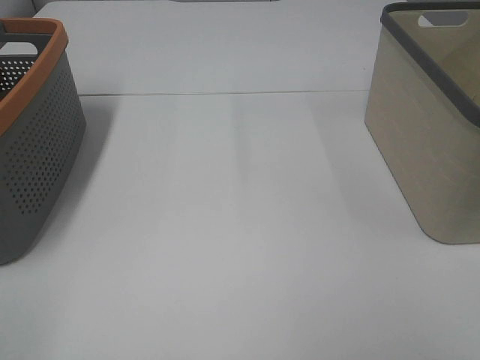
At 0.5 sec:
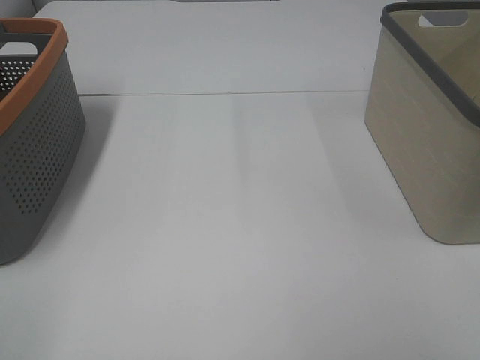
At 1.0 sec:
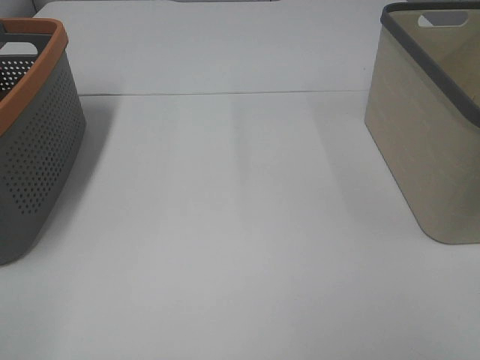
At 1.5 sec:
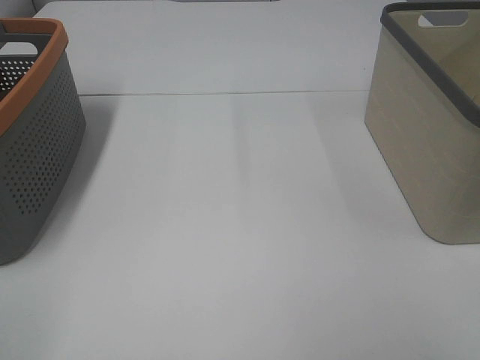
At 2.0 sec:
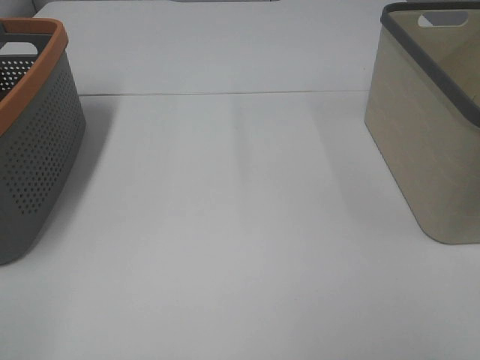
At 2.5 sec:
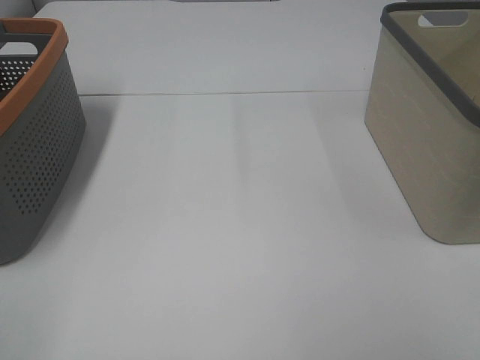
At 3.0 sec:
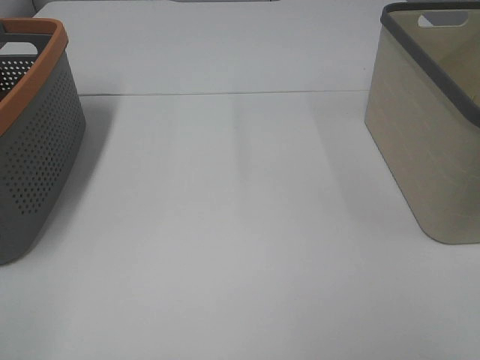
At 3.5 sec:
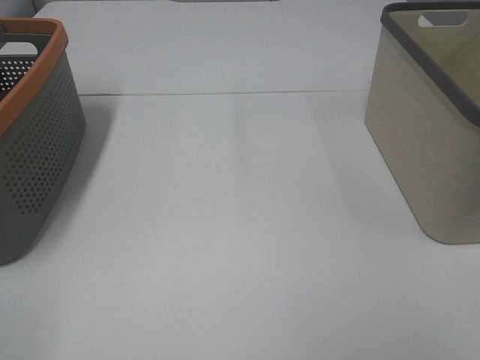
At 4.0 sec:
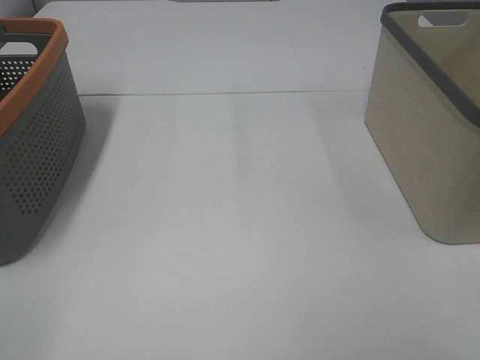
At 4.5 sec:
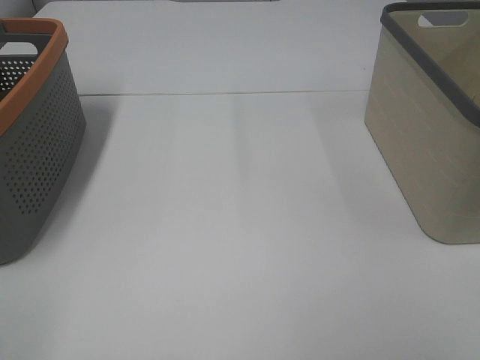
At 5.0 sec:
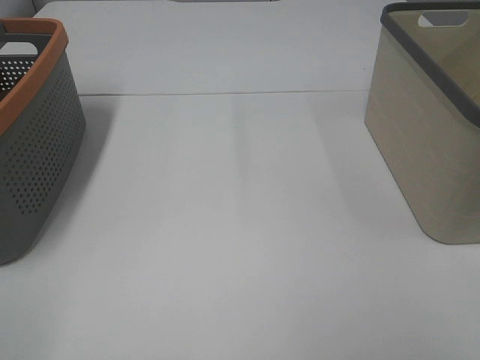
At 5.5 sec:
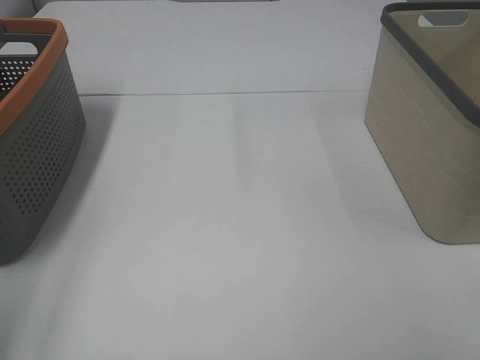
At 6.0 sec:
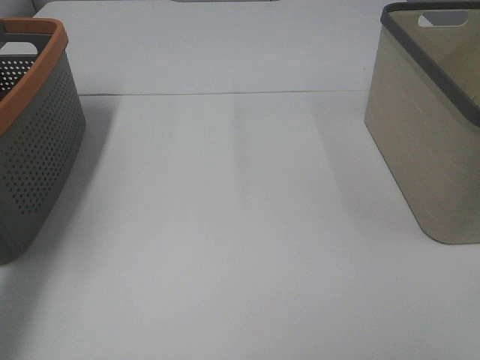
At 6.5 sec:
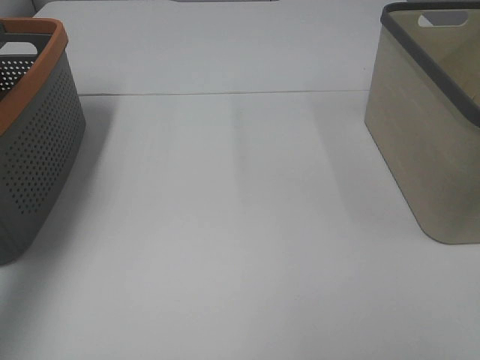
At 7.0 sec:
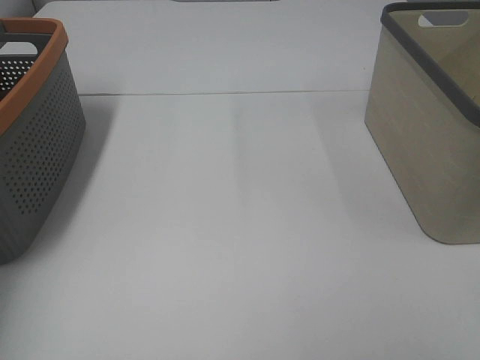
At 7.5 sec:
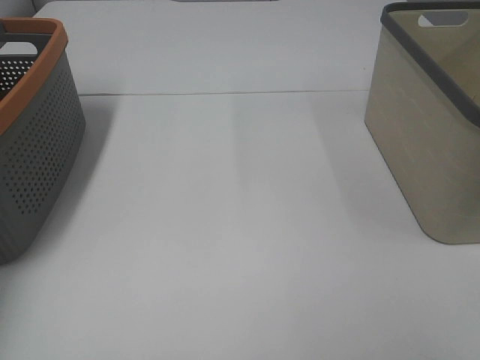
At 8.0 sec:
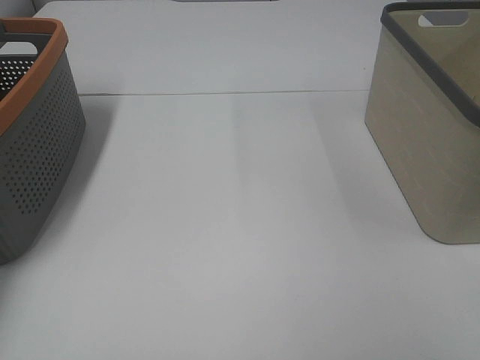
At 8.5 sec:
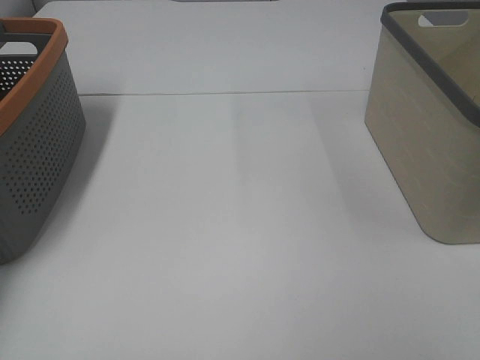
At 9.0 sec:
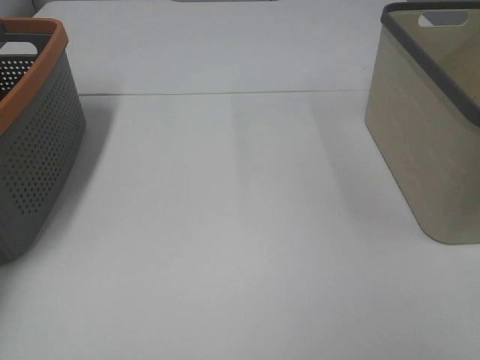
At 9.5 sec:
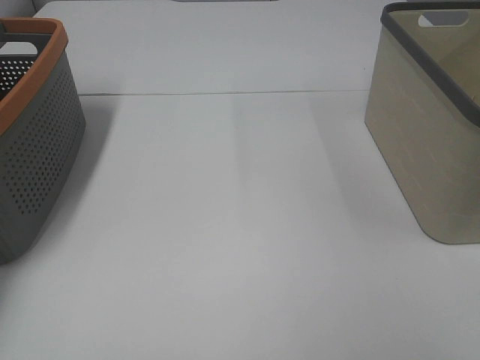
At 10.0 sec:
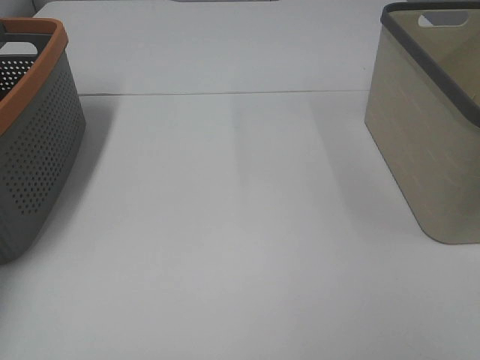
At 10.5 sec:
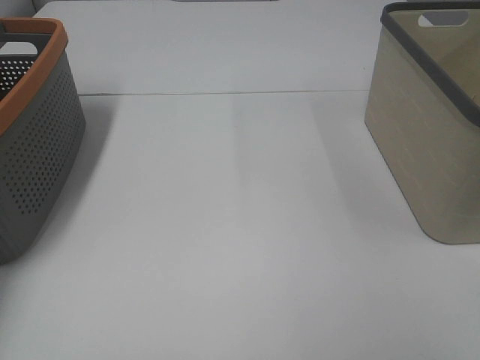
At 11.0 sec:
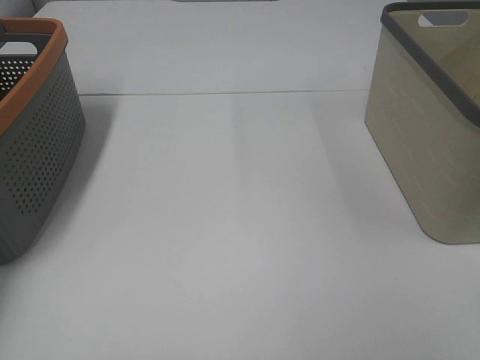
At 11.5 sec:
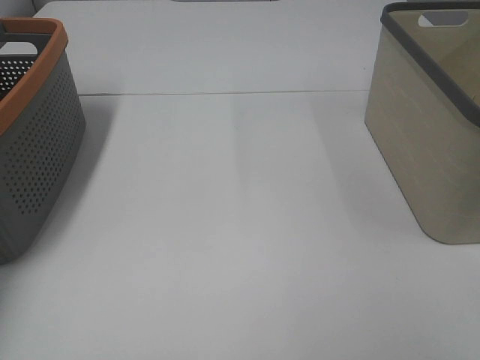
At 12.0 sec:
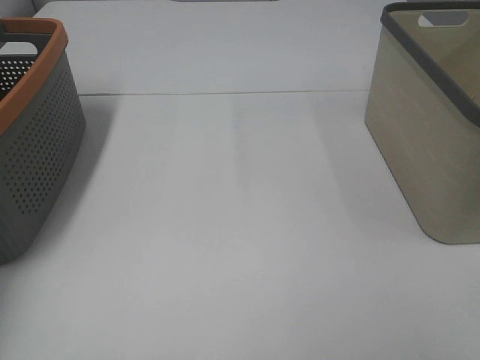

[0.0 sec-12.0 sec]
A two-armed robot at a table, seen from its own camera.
Task of the whole recording: Remove the towel and place it.
0.0 sec to 4.0 sec: The two grippers keep their place.
4.0 sec to 6.0 sec: The left gripper travels forward by some 25 cm.
6.0 sec to 8.0 sec: The left gripper shifts roughly 25 cm forward, to the left and downward.

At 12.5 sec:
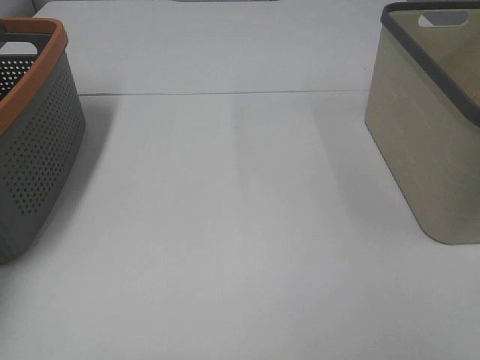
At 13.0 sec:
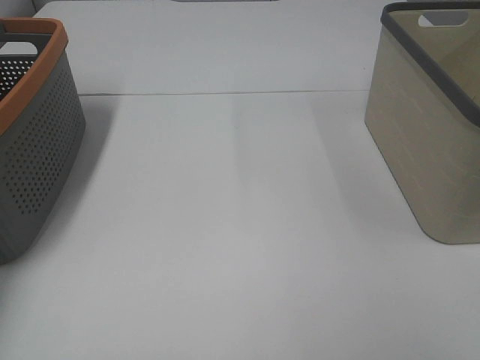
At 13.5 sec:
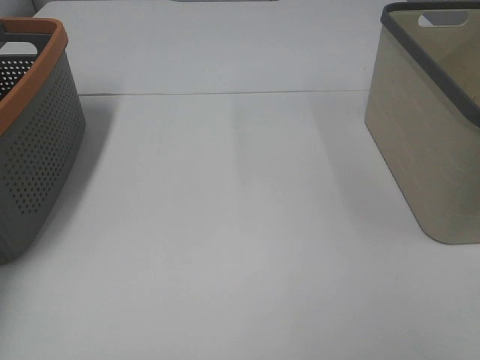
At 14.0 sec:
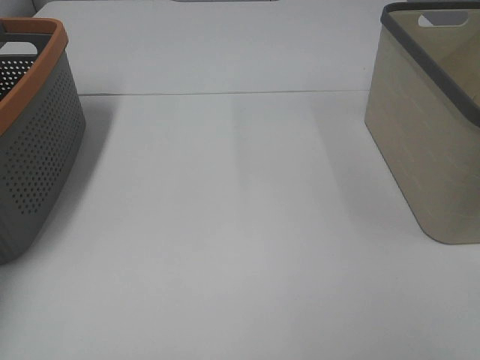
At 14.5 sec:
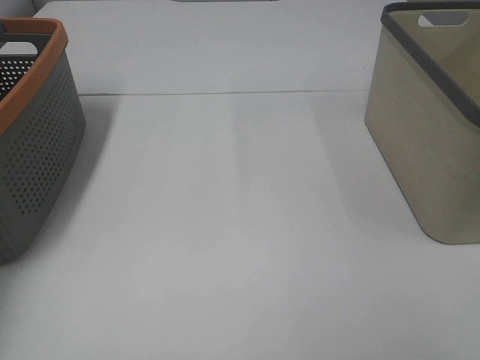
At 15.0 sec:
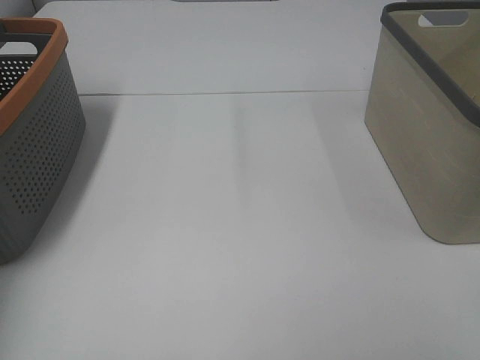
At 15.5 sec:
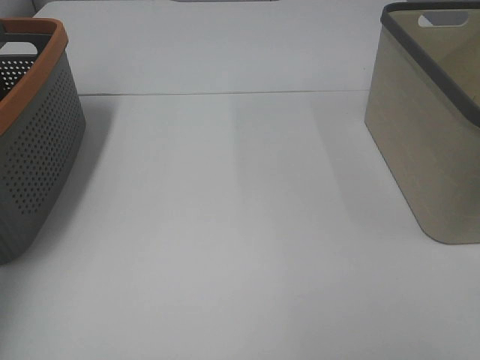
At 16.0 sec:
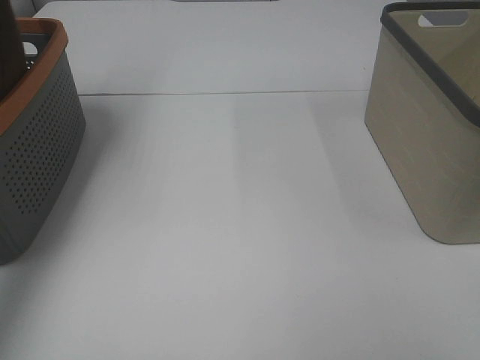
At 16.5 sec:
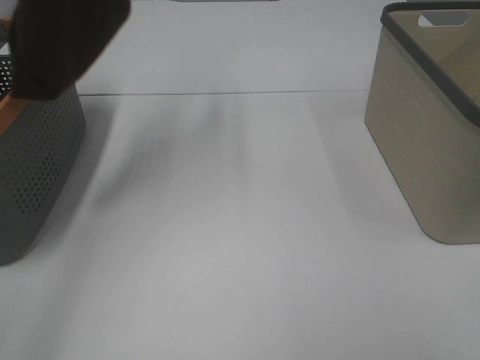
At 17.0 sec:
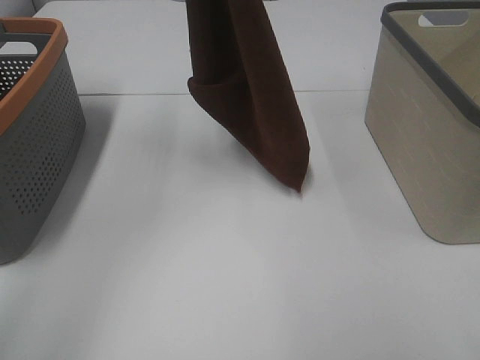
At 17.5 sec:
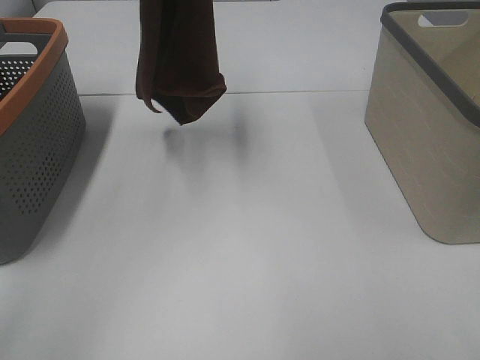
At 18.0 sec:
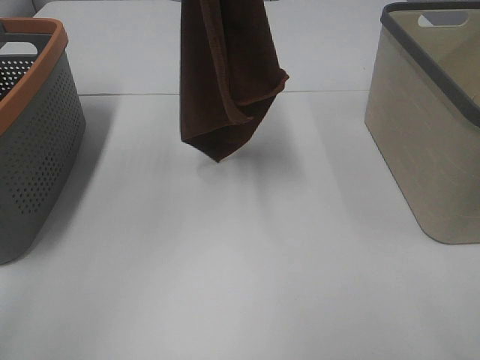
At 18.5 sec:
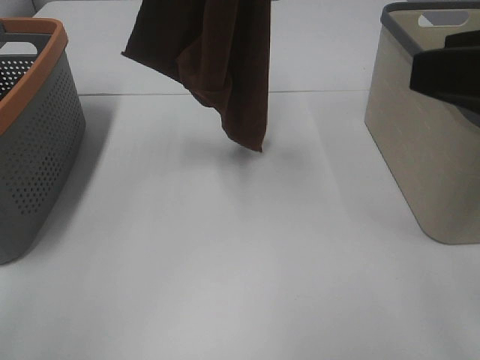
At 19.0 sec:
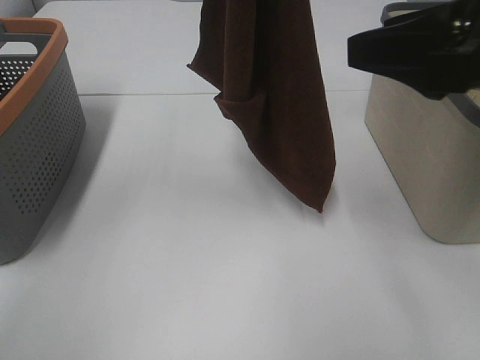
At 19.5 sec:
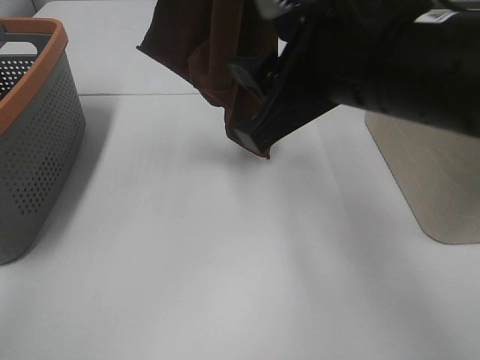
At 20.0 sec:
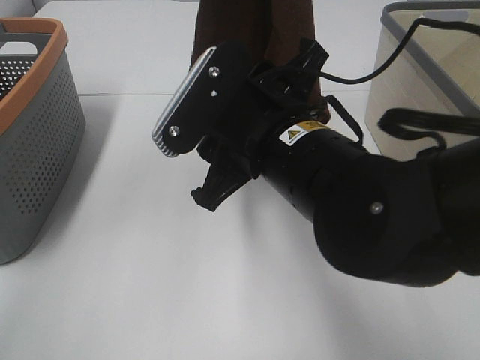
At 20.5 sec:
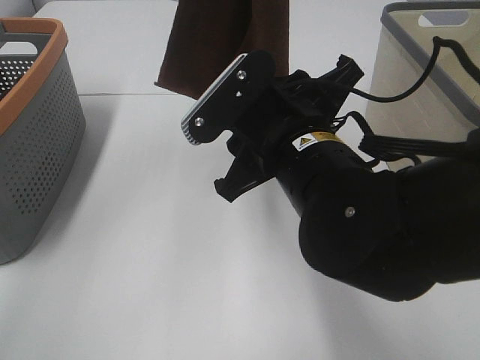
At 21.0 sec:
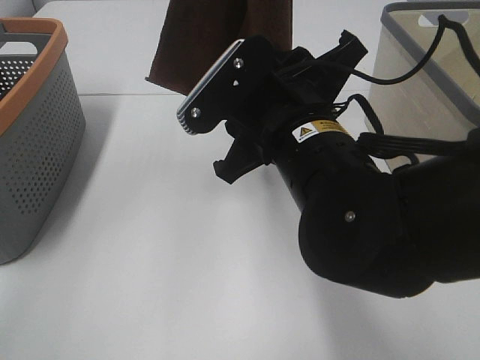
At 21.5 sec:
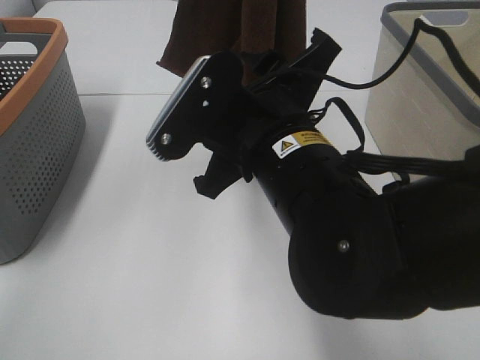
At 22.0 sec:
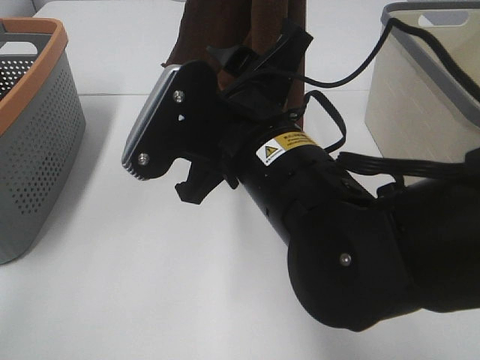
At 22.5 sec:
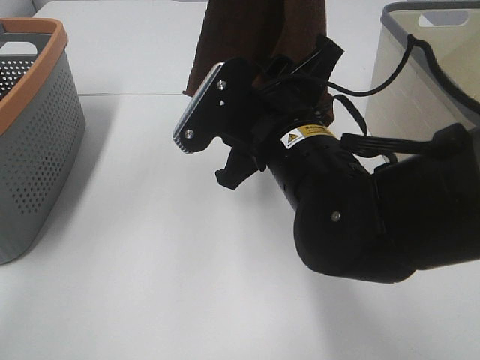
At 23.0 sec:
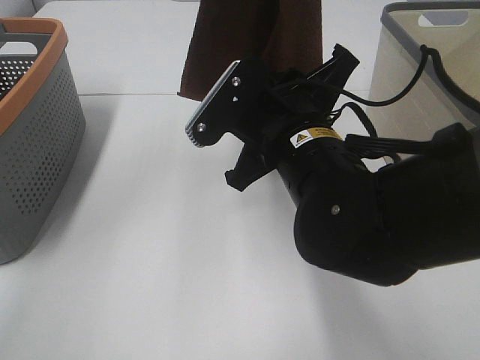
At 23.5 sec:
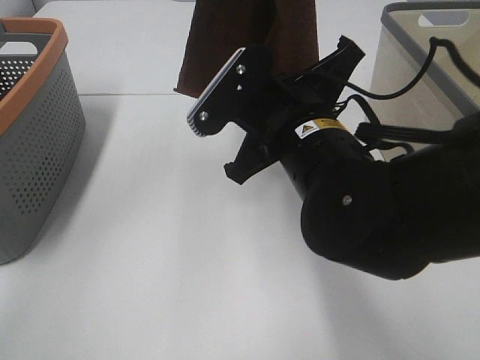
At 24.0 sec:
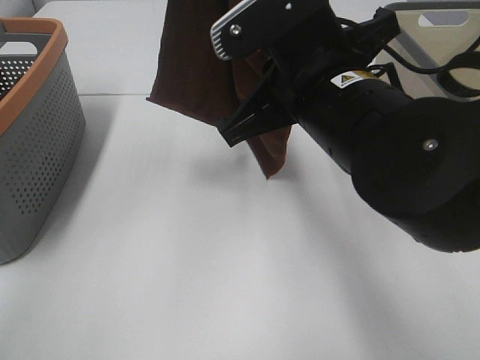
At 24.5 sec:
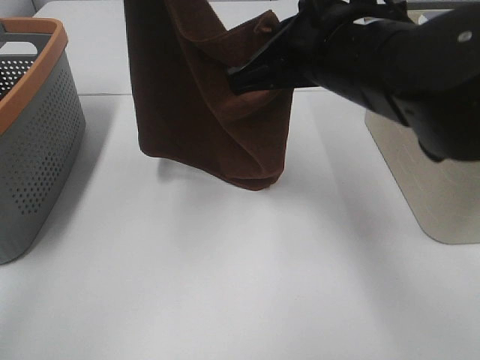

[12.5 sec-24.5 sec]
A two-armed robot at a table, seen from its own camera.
Task of the whole recording: Remove the towel and place it.
Step, 14.0 sec to 21.0 sec: Right hand: grab a corner of the brown towel and straighten it.
Step, 21.5 sec to 23.0 sec: Left hand: spread the brown towel flat on the table.
Step, 21.5 sec to 23.0 sec: Right hand: spread the brown towel flat on the table.
14.5 sec to 16.5 sec: The left gripper travels upward and to the right by some 35 cm.
16.5 sec to 18.5 sec: The right gripper goes approximately 15 cm forward, while the left gripper is displaced to the right and downward by some 15 cm.
18.5 sec to 20.5 sec: The right gripper goes about 20 cm to the left, downward and forward.
22.5 sec to 24.5 sec: The right gripper shifts roughly 5 cm upward, and closes up. Meanwhile the left gripper travels to the left by roughly 5 cm.

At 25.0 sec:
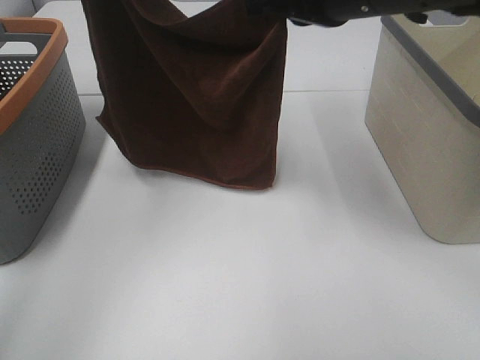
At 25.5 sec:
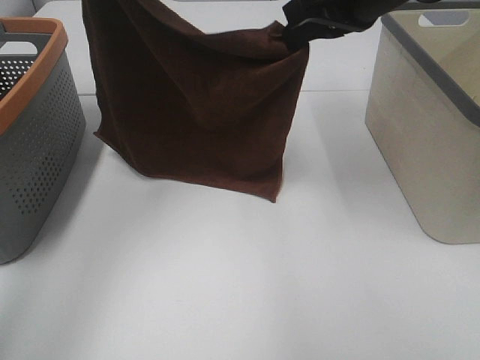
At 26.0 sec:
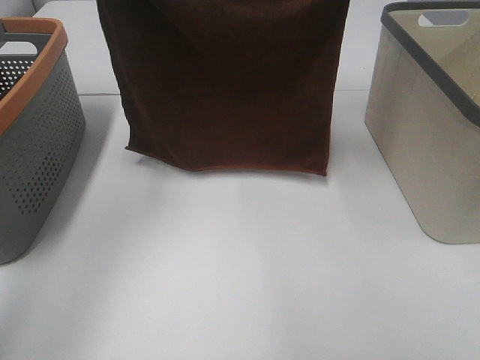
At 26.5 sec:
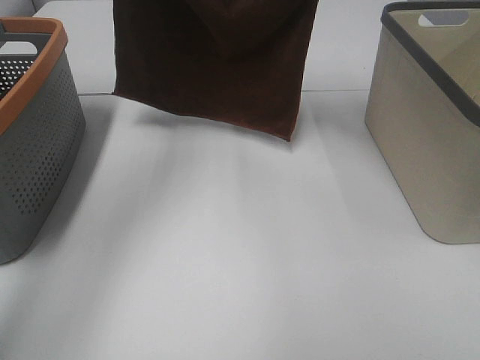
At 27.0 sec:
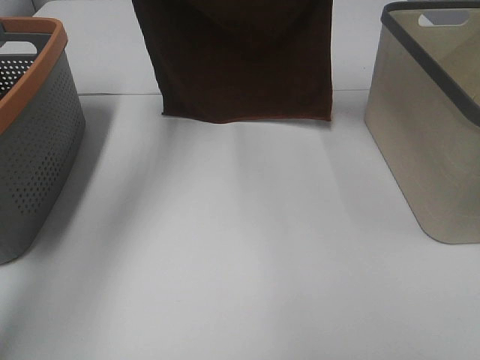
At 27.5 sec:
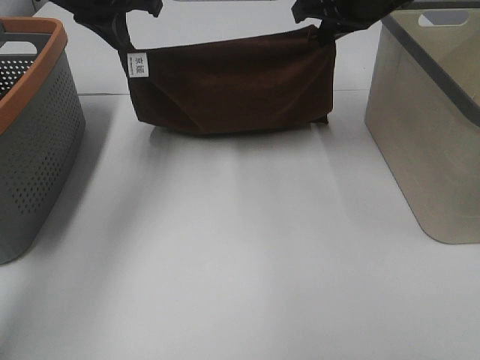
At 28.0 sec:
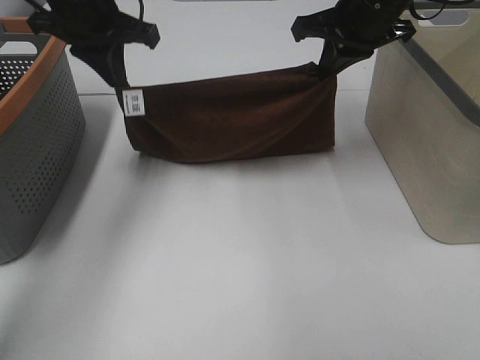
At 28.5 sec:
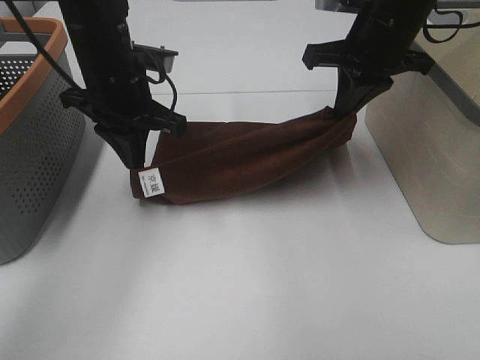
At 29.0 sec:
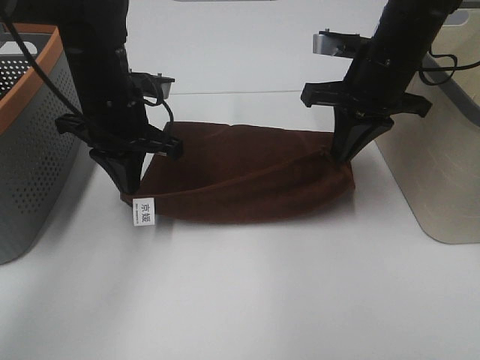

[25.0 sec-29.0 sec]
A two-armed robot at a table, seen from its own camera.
Task of the whole recording: Remove the towel and place it.
25.0 sec to 27.0 sec: The right gripper is displaced forward by about 15 cm. The left gripper heads forward and downward, covering approximately 15 cm.
27.0 sec to 29.0 sec: Both grippers move downward and backward, roughly 15 cm.
